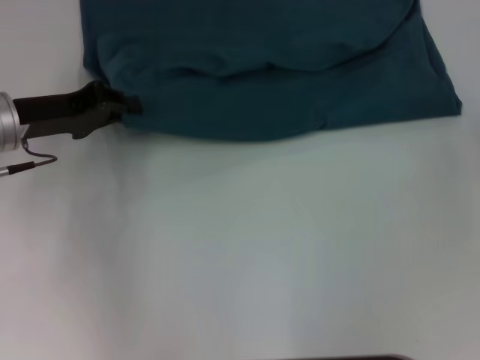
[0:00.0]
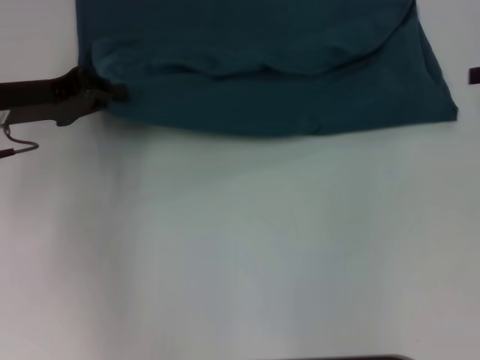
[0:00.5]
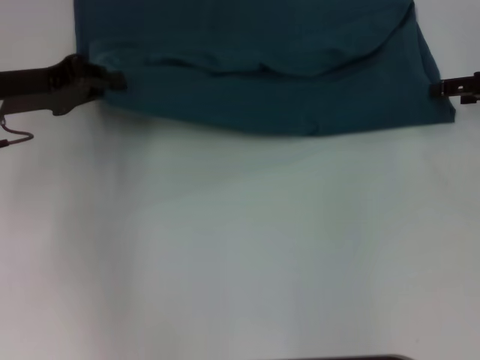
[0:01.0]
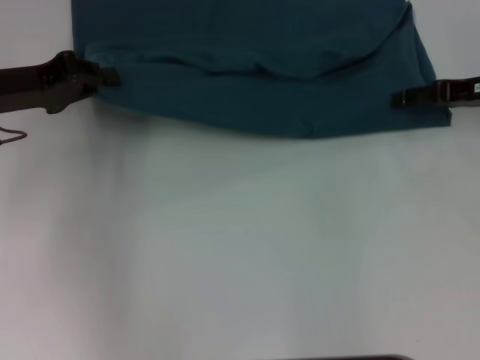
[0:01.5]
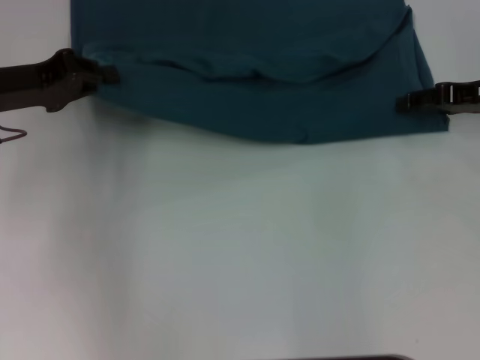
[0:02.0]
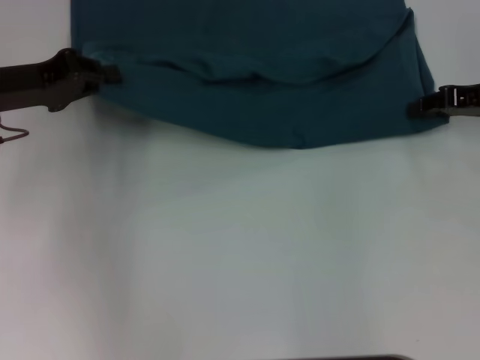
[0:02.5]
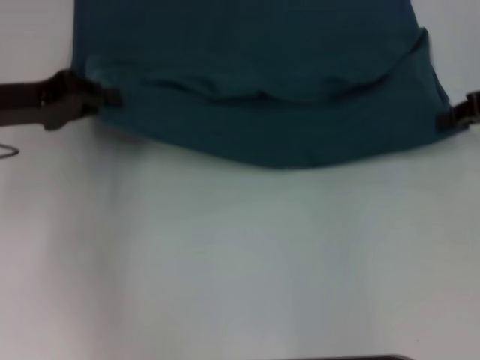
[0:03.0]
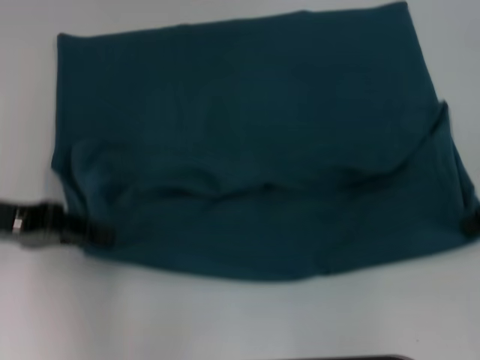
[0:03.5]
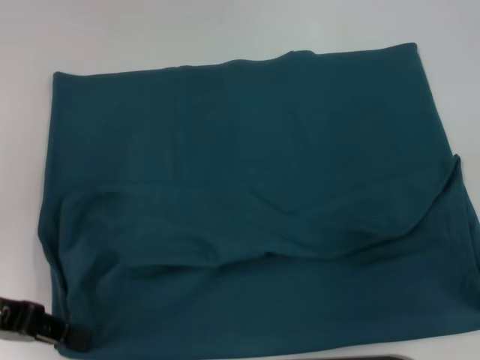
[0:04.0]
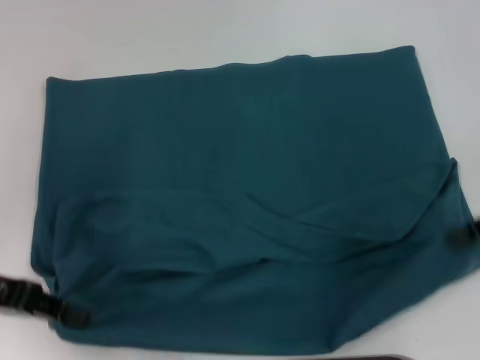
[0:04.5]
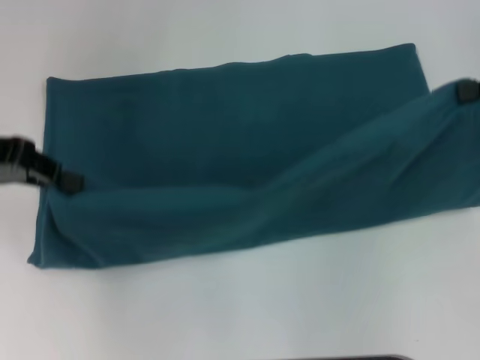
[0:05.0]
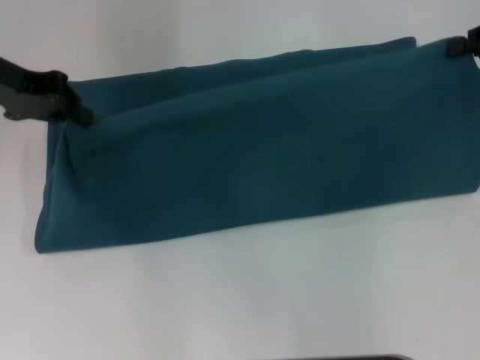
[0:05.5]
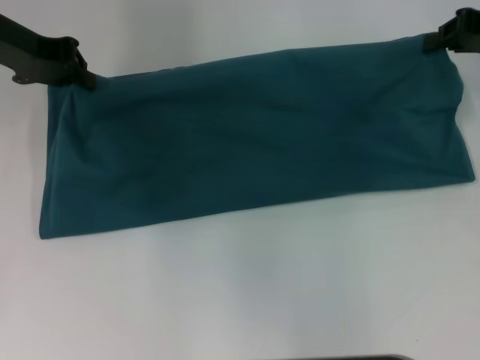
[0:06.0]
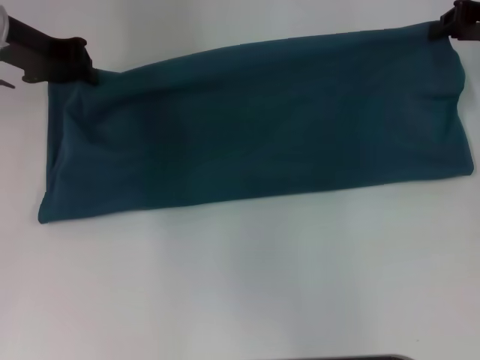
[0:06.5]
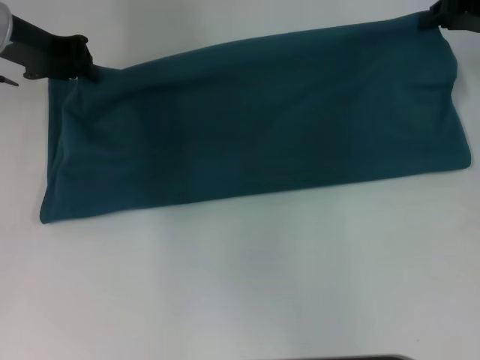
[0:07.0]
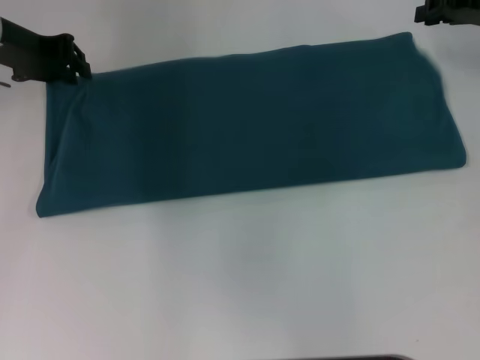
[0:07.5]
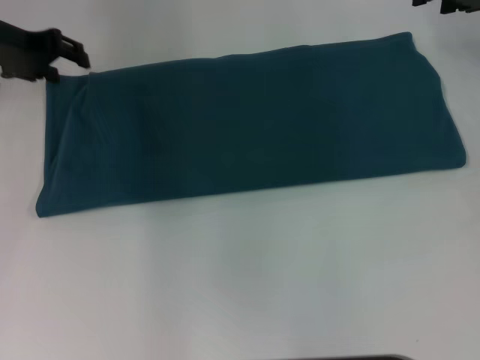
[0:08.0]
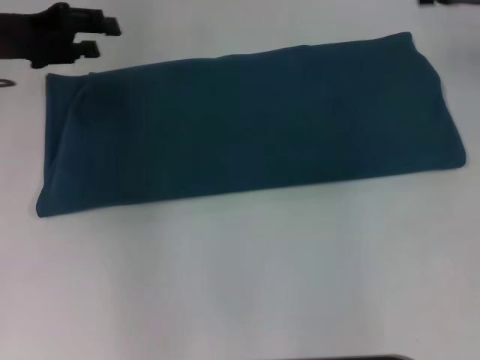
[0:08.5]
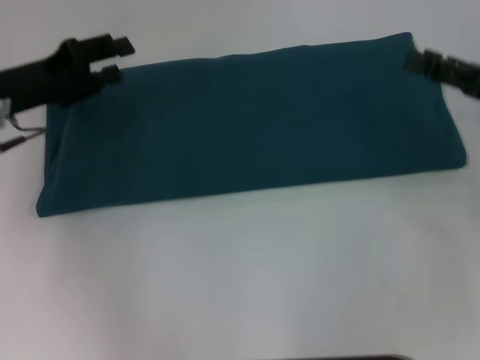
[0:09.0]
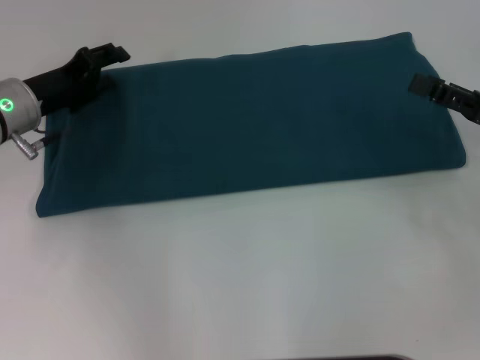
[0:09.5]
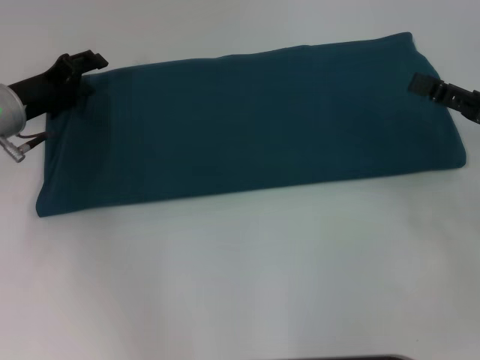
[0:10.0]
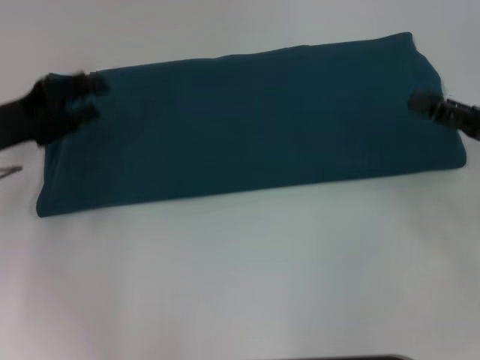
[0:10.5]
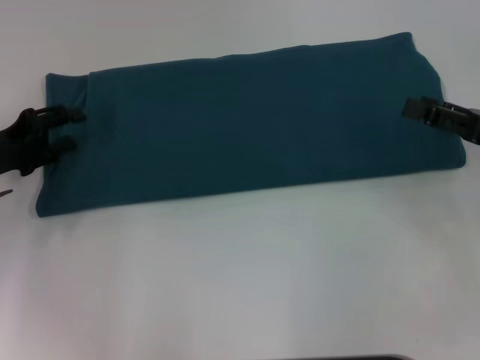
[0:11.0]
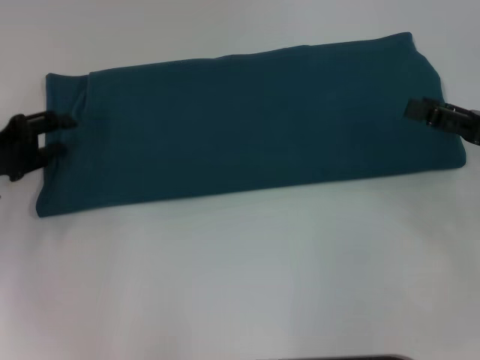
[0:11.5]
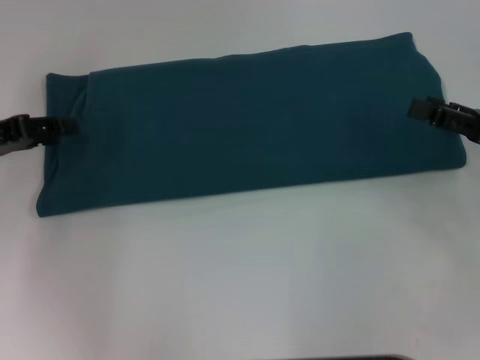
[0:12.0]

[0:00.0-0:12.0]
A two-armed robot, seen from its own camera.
Step, 0:00.0 to 0:04.0: Pull the clothes with your left hand.
Step, 0:00.0 to 0:04.0: Pull the clothes with your right hand.
Step, 0:04.5 to 0:07.5: Fold the clothes to the right.
0:00.0 to 0:02.0: The right gripper heads to the left and forward, covering roughly 10 cm.
0:02.0 to 0:04.0: Both grippers move backward, roughly 10 cm. The right gripper closes up.
0:04.0 to 0:06.0: The left gripper shifts approximately 20 cm forward and upward. The right gripper travels forward by about 15 cm.
0:06.0 to 0:08.0: The left gripper opens up.
0:08.0 to 0:10.0: The left gripper shifts roughly 10 cm downward and backward; the right gripper moves backward and downward, about 20 cm, and opens.
0:10.0 to 0:12.0: The left gripper shifts roughly 10 cm to the left and backward.

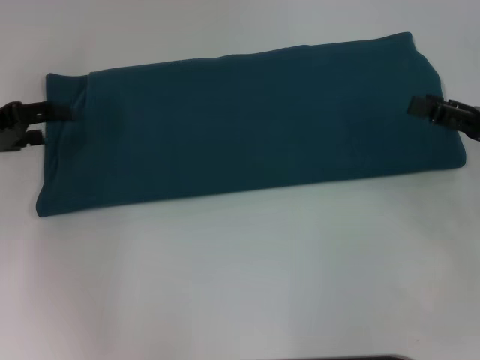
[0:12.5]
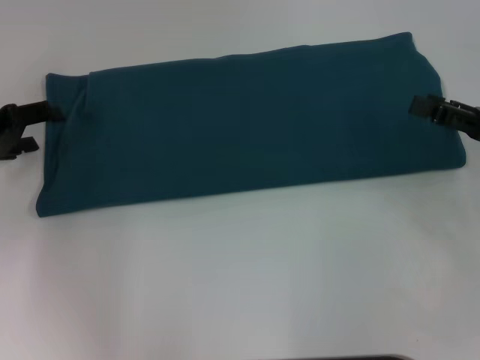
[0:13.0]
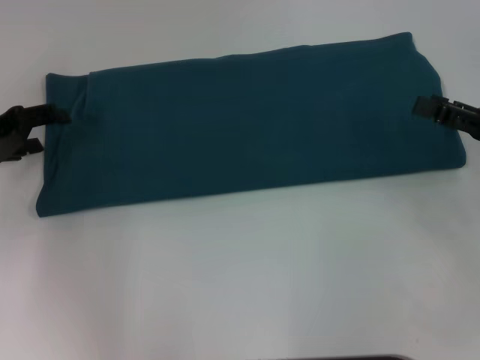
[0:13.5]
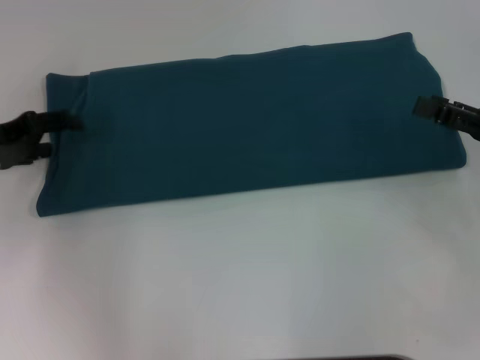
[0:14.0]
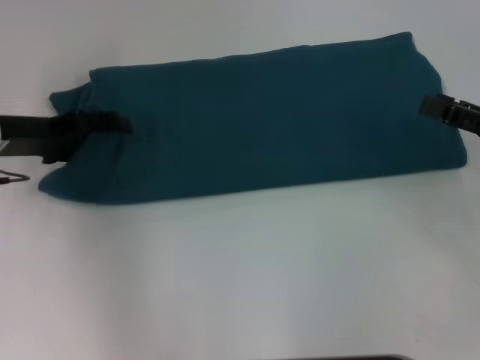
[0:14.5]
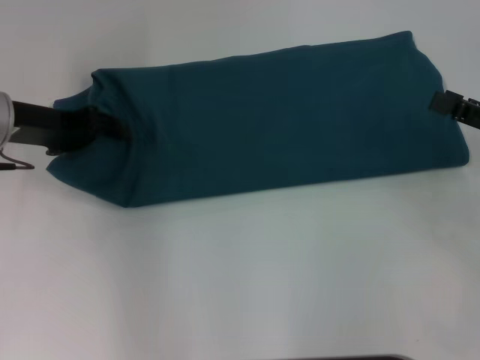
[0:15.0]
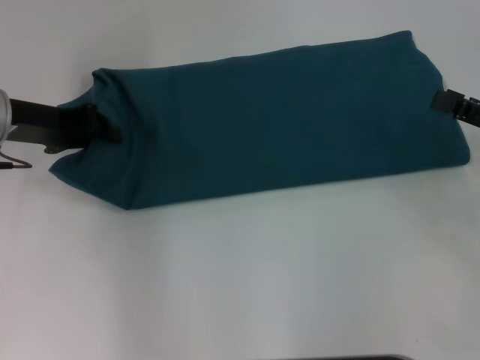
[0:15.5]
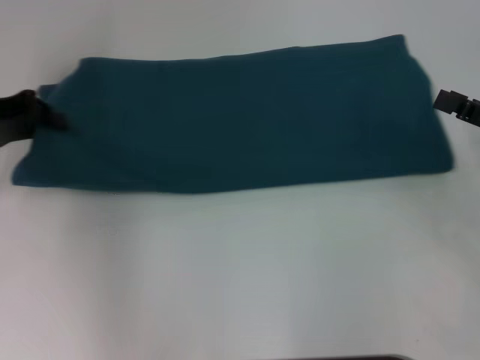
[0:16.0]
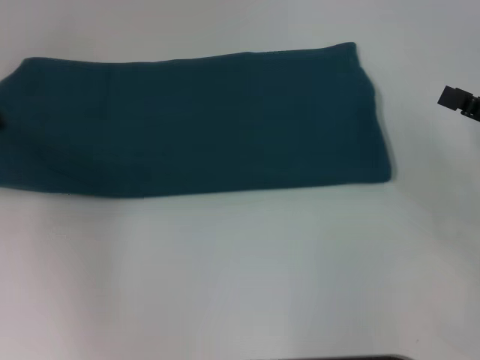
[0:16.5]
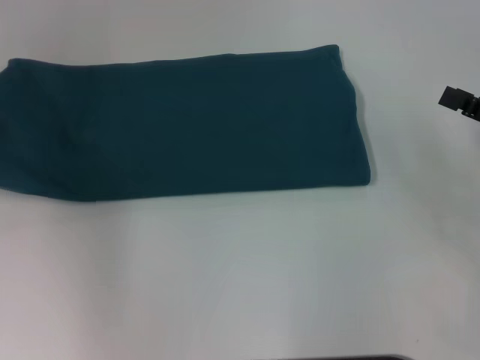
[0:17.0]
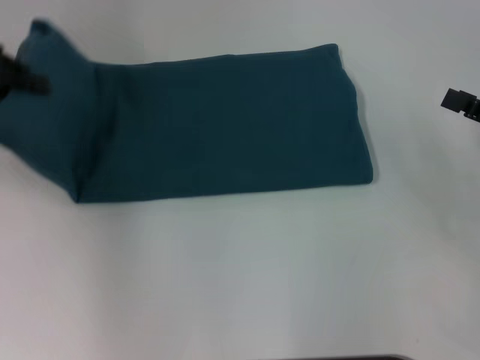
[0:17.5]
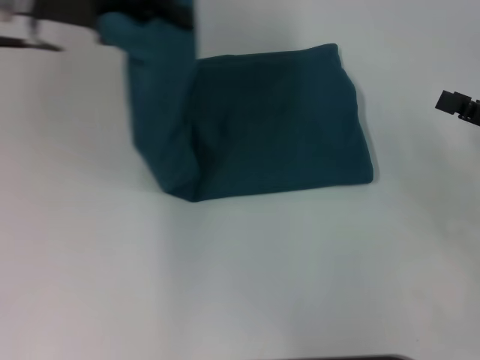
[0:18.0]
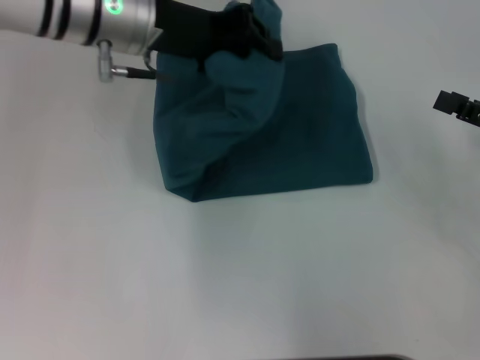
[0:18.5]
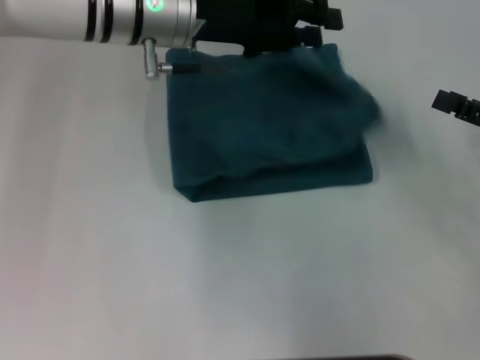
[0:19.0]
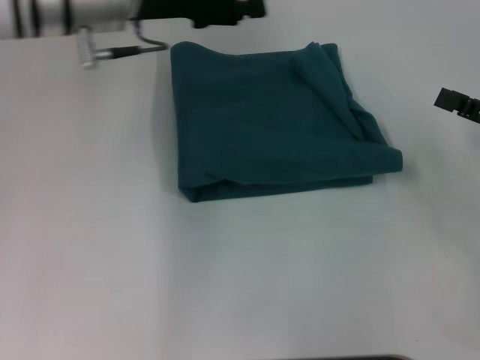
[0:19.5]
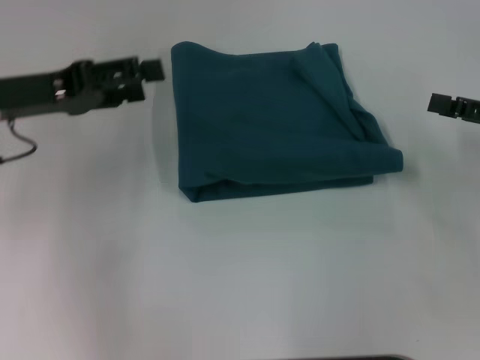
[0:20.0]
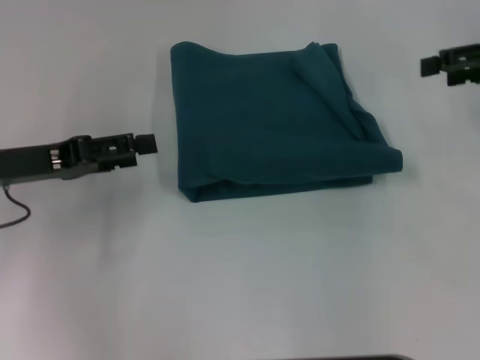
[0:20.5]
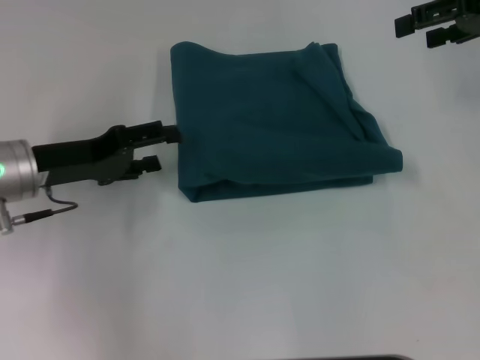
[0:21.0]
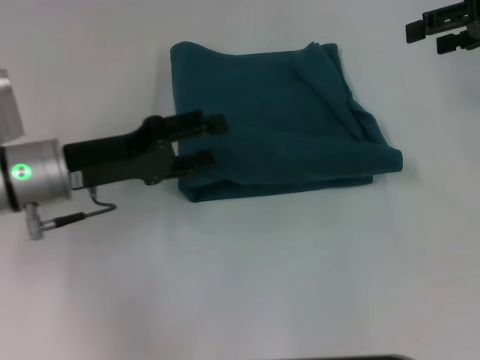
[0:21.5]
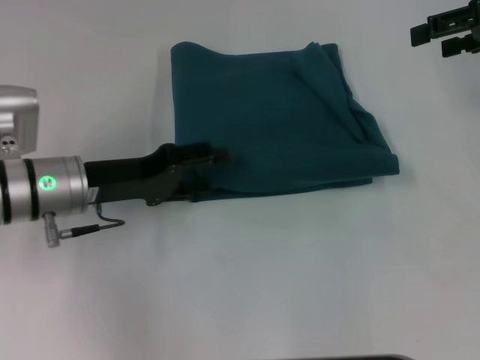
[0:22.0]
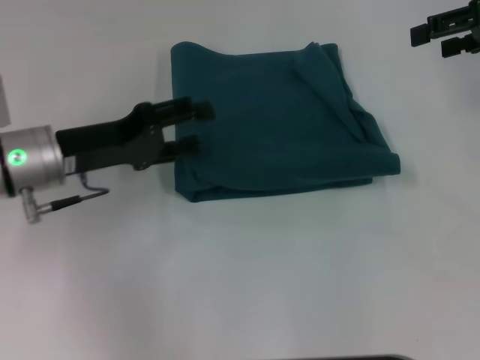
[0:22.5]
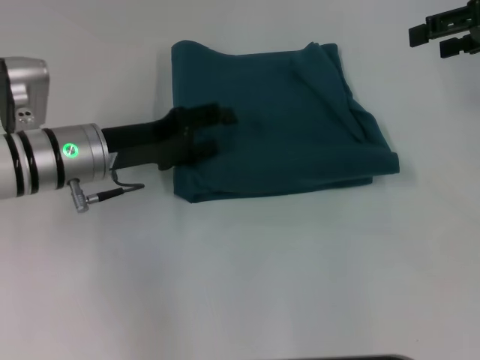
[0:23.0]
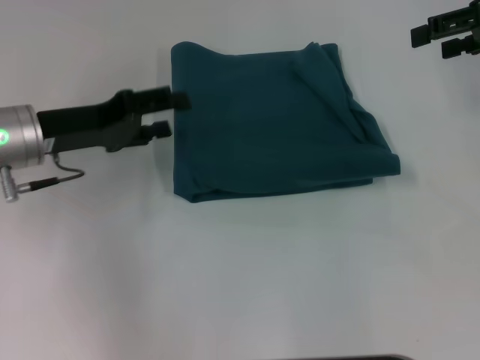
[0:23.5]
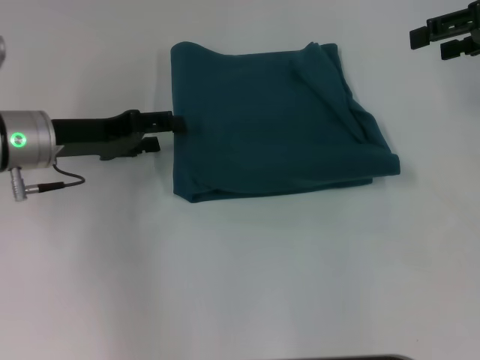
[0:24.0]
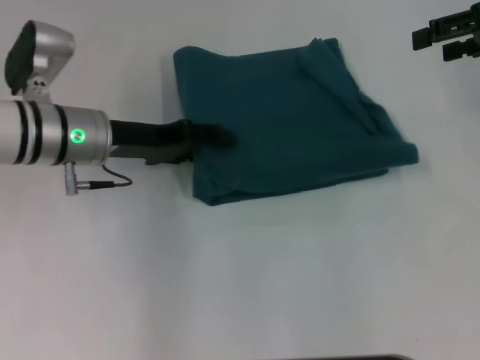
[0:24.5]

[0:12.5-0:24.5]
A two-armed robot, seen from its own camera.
Step, 0:12.5 to 0:19.0: Fold the clothes to the left.
0:12.5 to 0:14.5: The left gripper moves to the right, roughly 5 cm.
0:14.5 to 0:16.5: The left gripper heads to the left, covering about 10 cm, and closes up.
0:16.5 to 0:18.5: The left gripper goes about 25 cm to the right.
0:18.5 to 0:20.5: The right gripper moves forward and upward, about 15 cm; the left gripper moves to the left, backward and downward, about 20 cm, and opens its fingers.
0:20.5 to 0:22.5: The left gripper shifts roughly 5 cm to the right.
0:22.5 to 0:24.5: The left gripper moves about 5 cm.

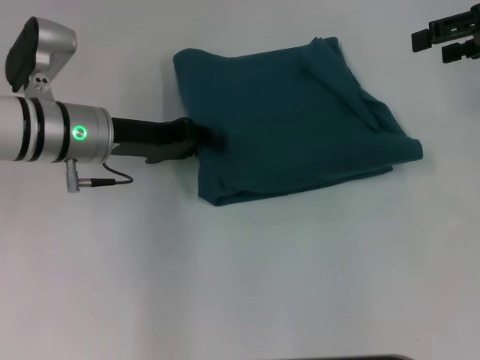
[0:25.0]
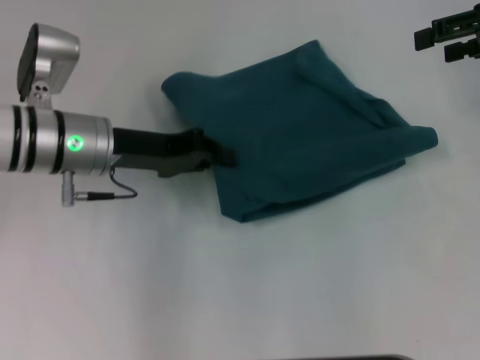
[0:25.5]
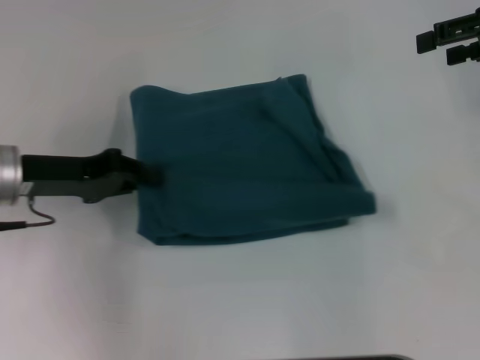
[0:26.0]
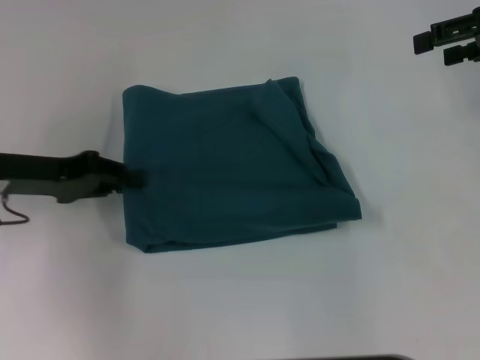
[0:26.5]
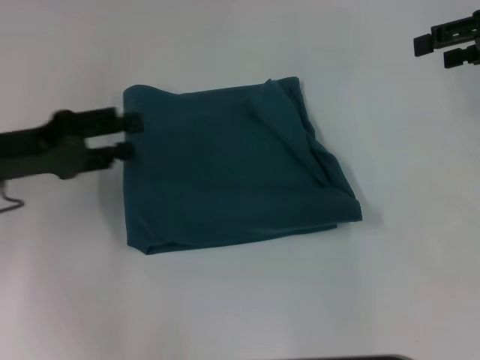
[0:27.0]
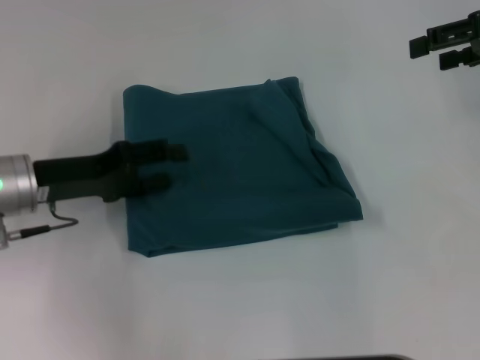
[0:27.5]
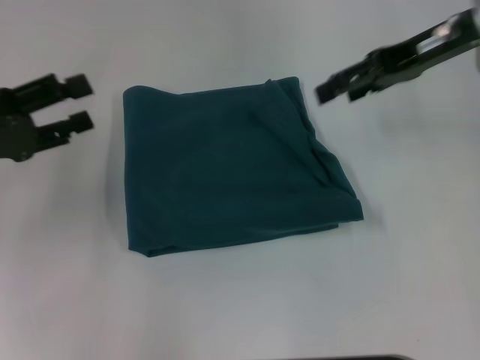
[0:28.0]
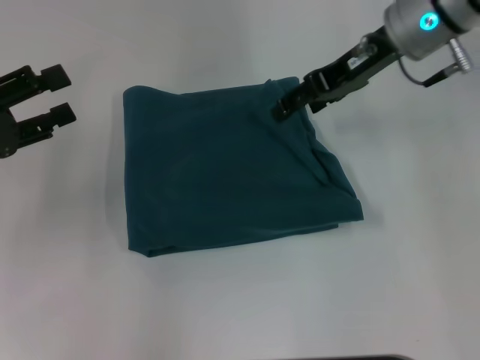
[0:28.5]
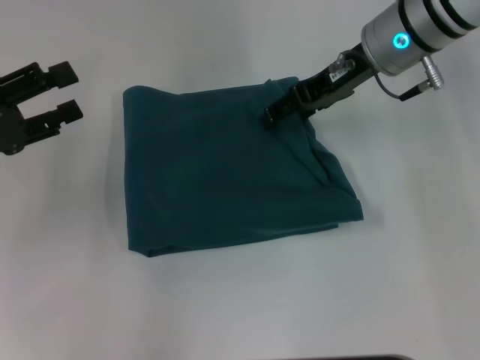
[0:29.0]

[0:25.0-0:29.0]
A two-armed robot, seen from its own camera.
0:25.0 to 0:27.0: The left gripper is displaced to the left and backward by approximately 10 cm, and closes and opens again.
0:27.0 to 0:29.0: The left gripper opens its fingers. Meanwhile the right gripper is displaced to the left by approximately 20 cm.
